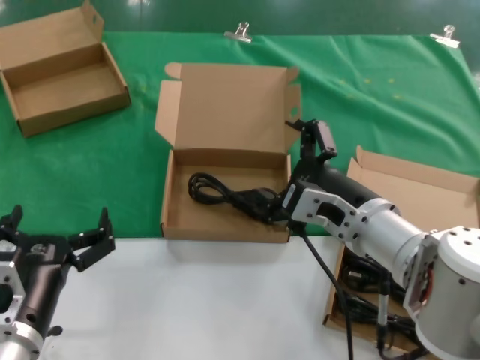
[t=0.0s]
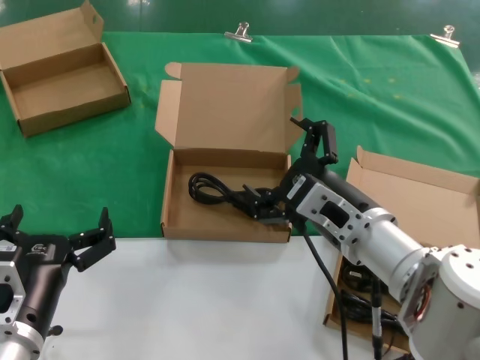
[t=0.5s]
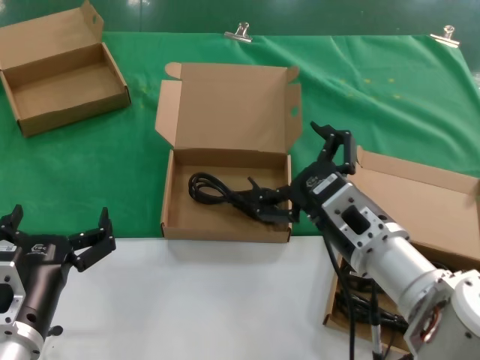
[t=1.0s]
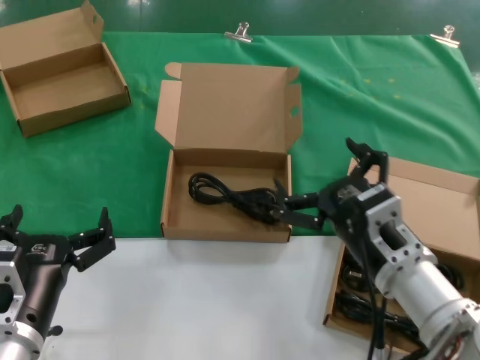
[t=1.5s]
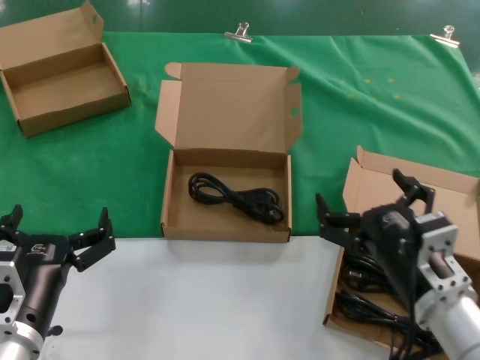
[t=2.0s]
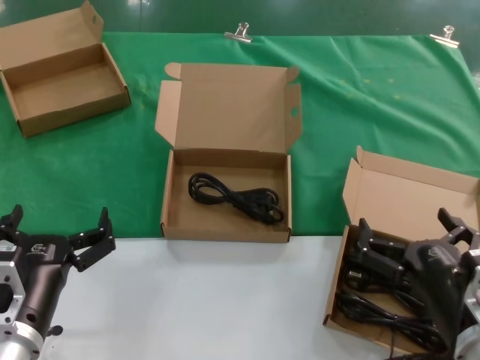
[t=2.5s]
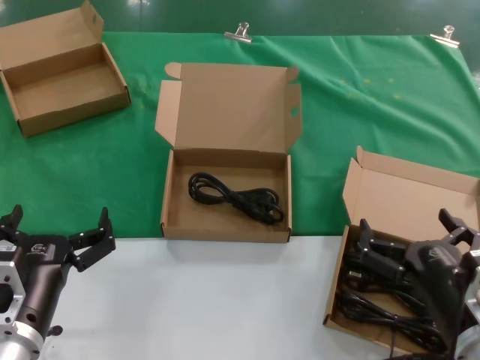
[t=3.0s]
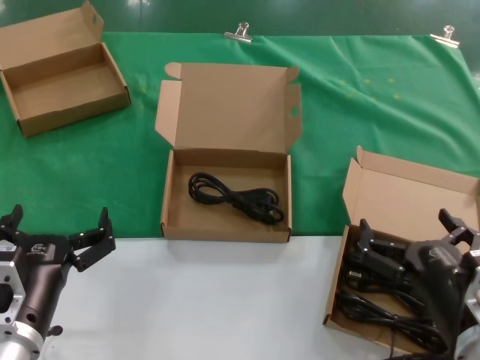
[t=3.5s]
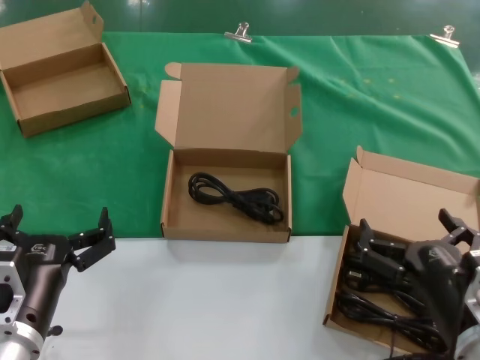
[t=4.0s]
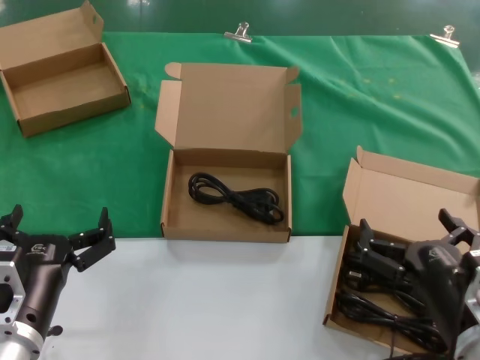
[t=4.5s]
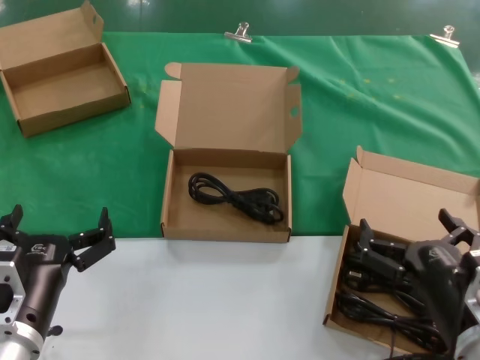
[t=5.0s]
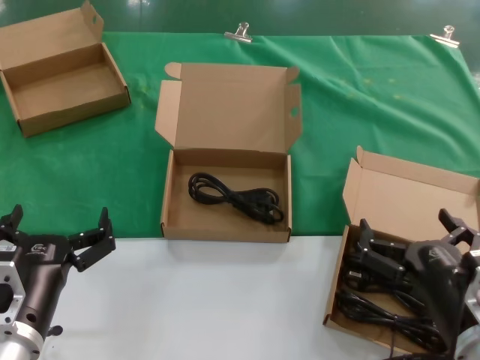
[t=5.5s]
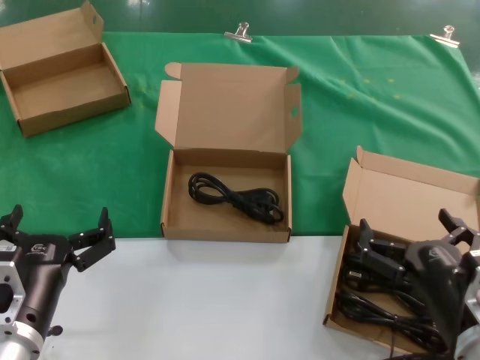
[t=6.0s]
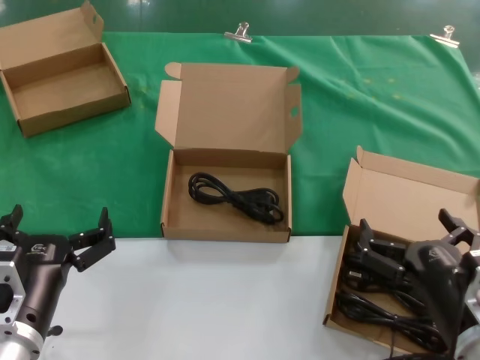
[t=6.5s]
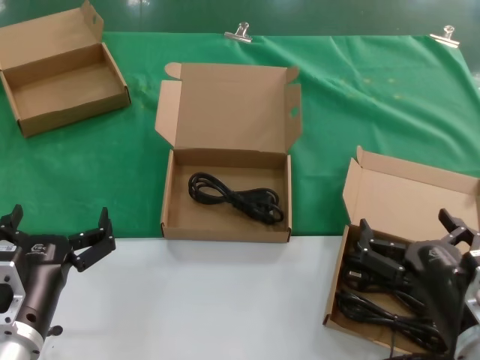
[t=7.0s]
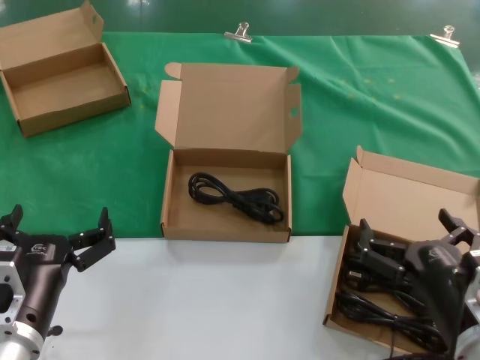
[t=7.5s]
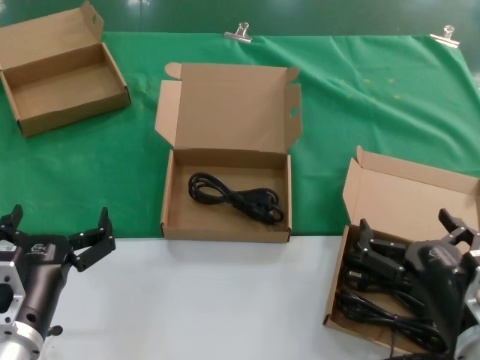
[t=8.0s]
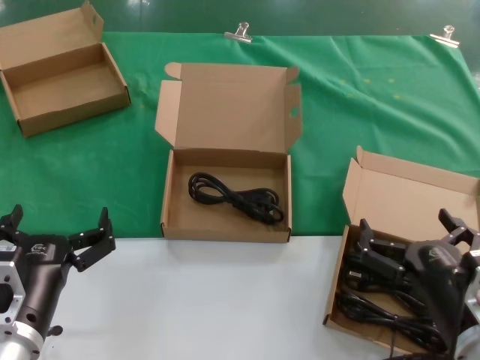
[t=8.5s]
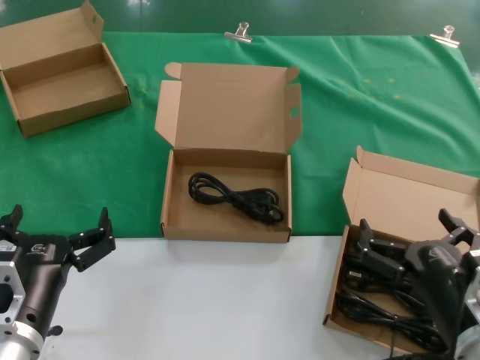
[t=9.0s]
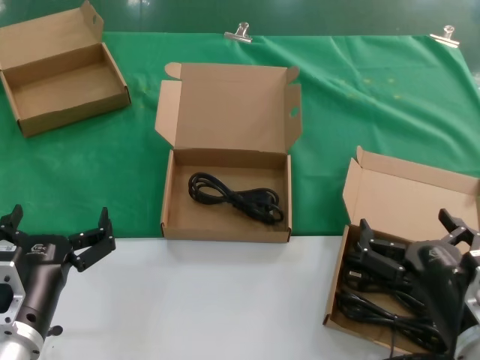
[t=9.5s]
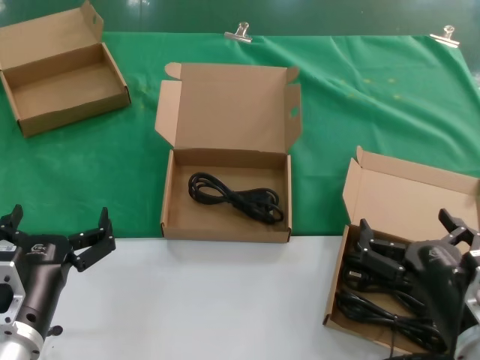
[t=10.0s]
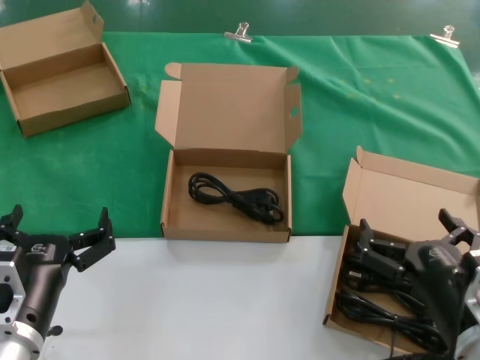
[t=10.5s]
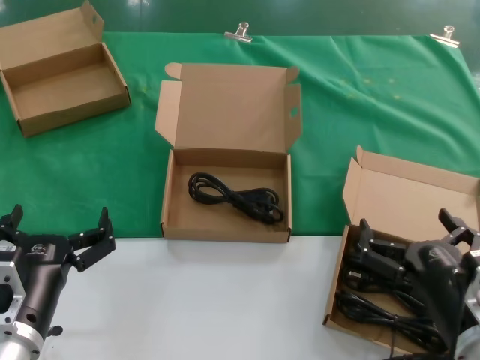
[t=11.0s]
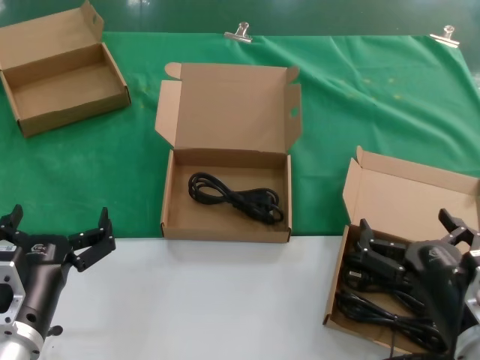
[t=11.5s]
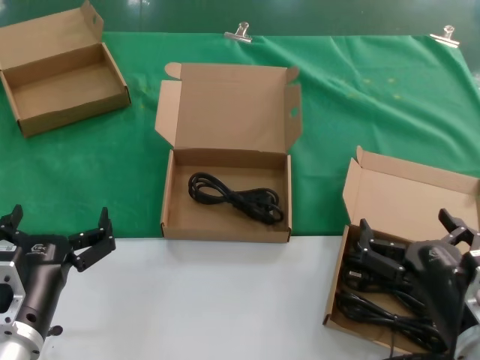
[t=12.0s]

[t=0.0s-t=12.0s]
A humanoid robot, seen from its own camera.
Task of the whole recording: take the parts from the box containing them and put them into an empty box.
t=0.0s to t=2.0s: The right hand travels backward, downward and to the right by roughly 10 cm.
t=2.0s to t=4.0s: The right hand shifts by about 5 cm.
t=4.0s to t=12.0s: Neither hand changes place.
